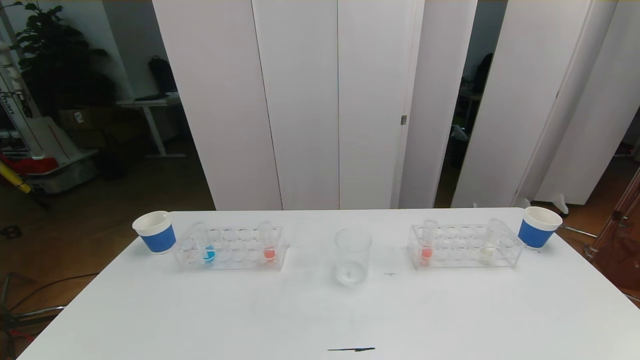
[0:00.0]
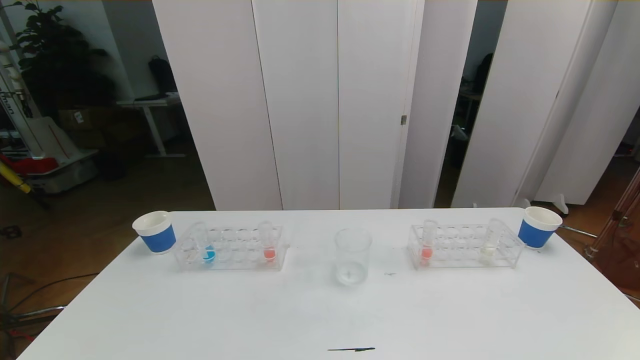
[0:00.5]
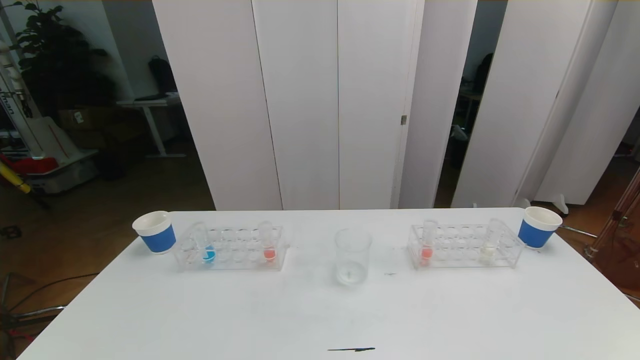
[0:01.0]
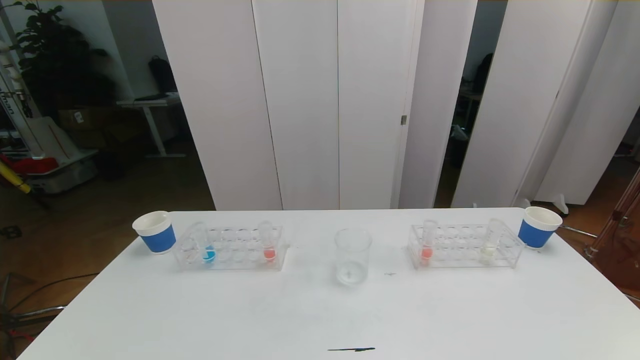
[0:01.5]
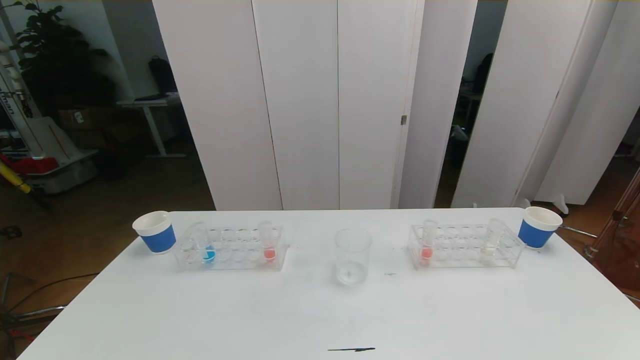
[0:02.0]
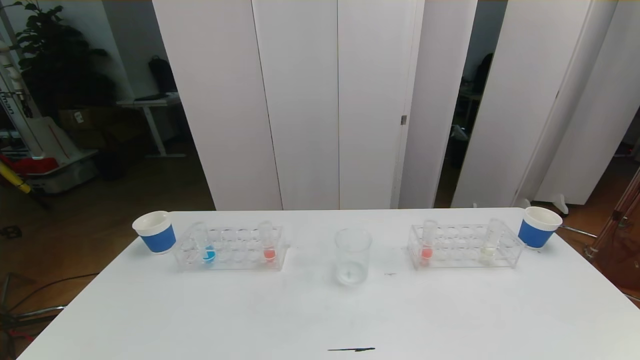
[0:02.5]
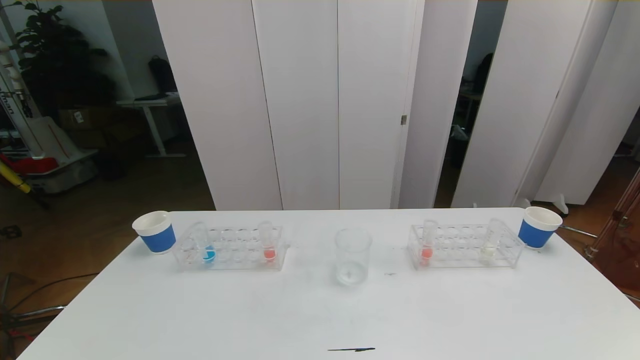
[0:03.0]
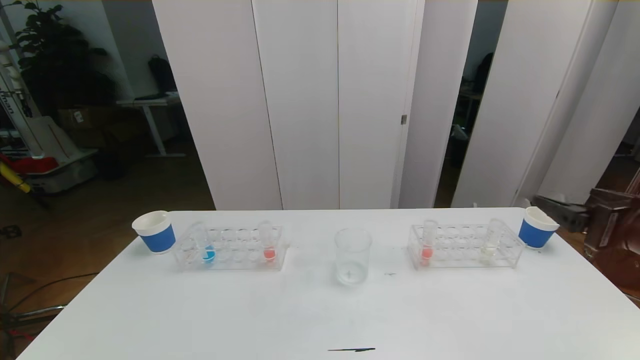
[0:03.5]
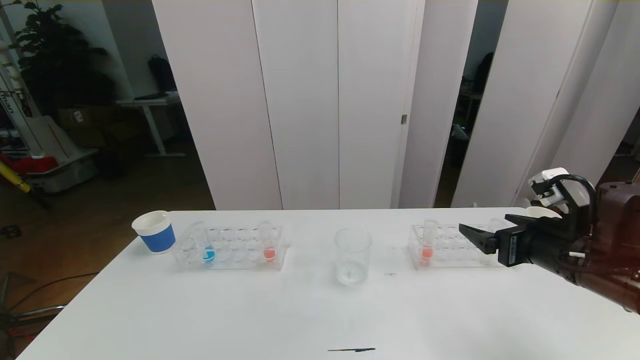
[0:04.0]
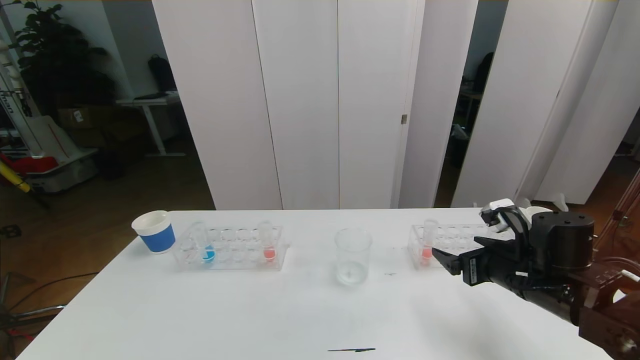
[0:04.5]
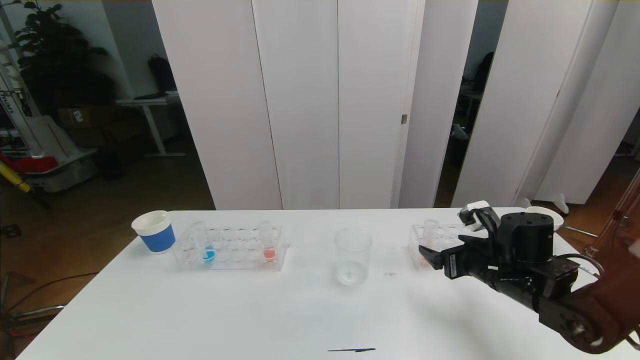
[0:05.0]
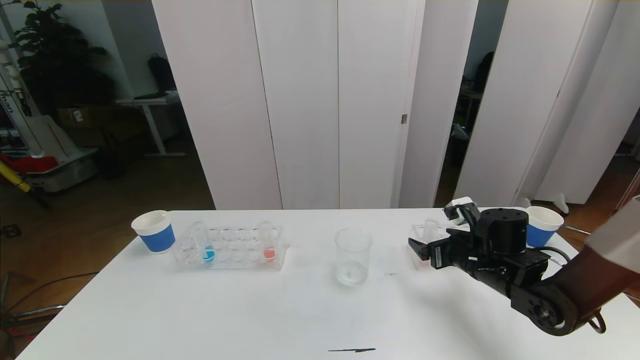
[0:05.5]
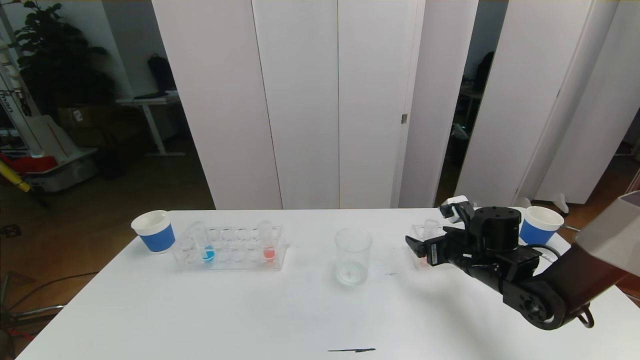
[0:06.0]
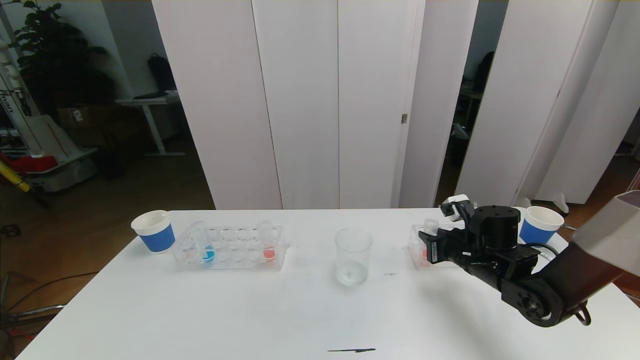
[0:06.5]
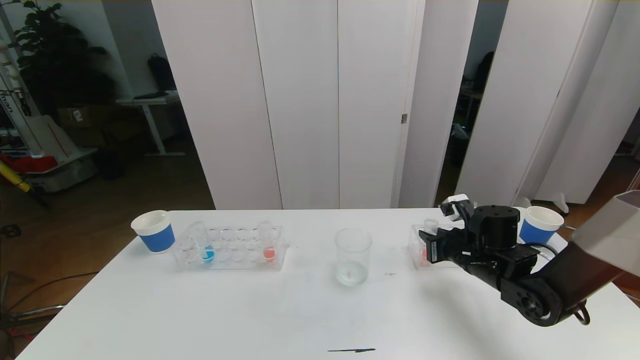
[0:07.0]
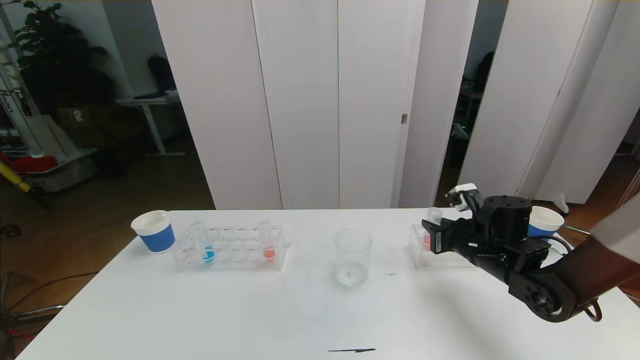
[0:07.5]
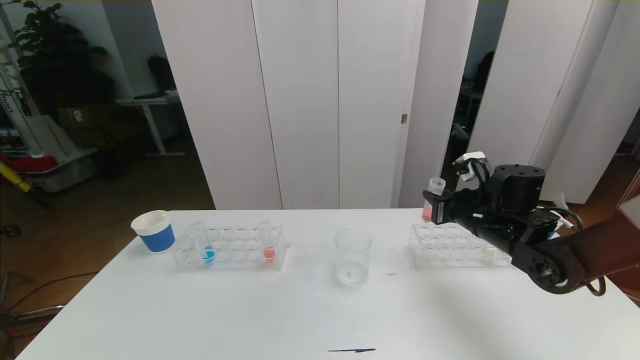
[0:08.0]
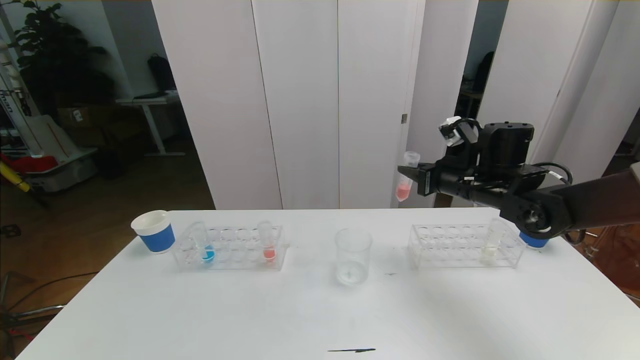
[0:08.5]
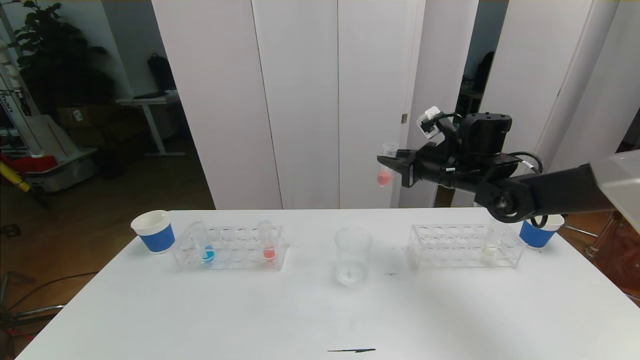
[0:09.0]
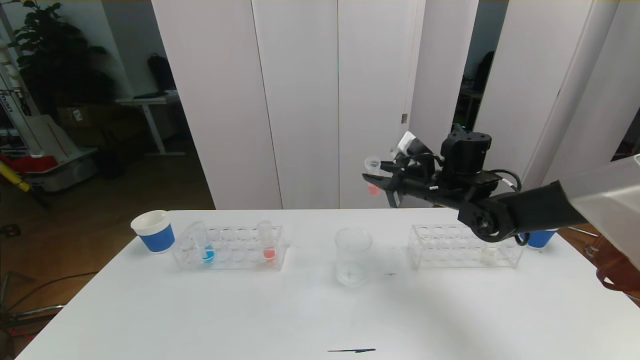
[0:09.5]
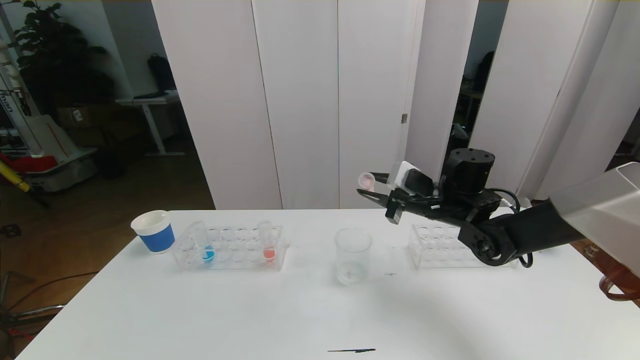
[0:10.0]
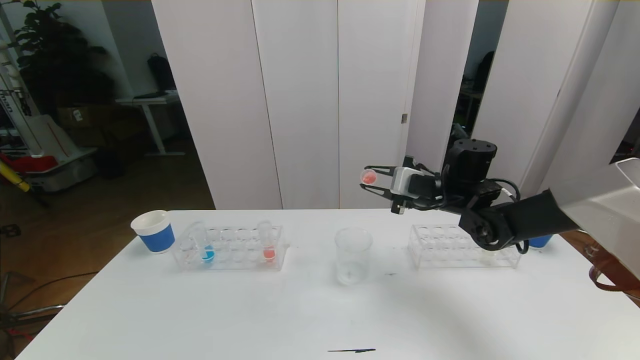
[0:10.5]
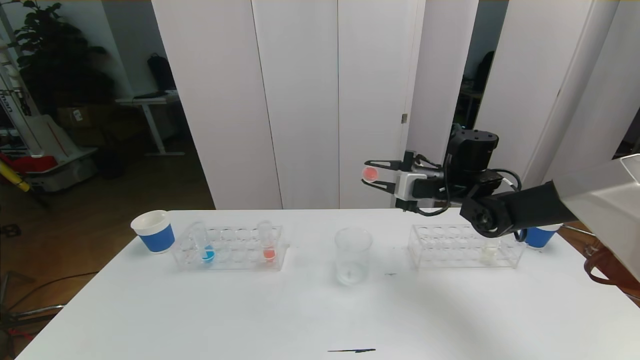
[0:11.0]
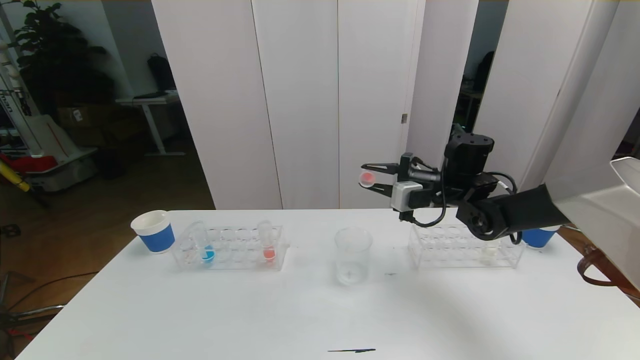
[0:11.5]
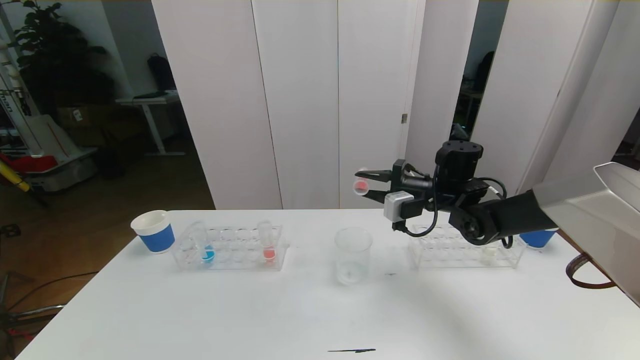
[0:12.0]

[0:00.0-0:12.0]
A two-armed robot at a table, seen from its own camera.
Task of the whole recording: pick up the test tube with red pigment the test tube with blue pigment and the test tube with white pigment by grippers and pour them into the beaker.
0:02.0 to 0:04.0: The right gripper travels forward by roughly 30 cm.
0:04.0 to 0:06.0: The right gripper goes some 15 cm downward and forward.
0:06.0 to 0:08.0: The right gripper is displaced upward by roughly 5 cm, and closes.
0:08.0 to 0:10.0: The right gripper travels to the left by about 5 cm.

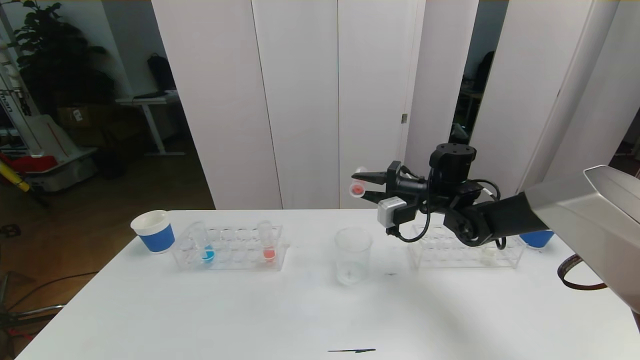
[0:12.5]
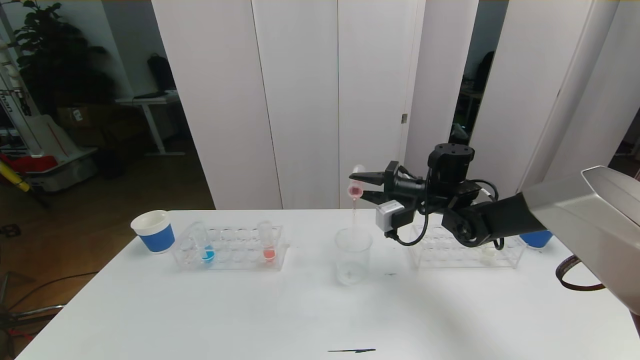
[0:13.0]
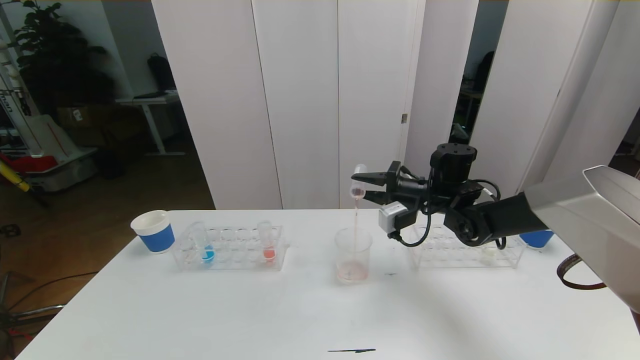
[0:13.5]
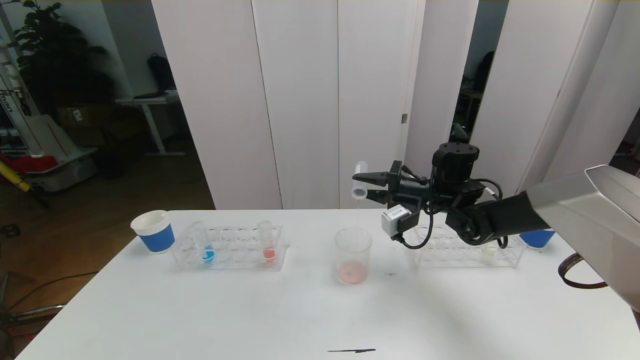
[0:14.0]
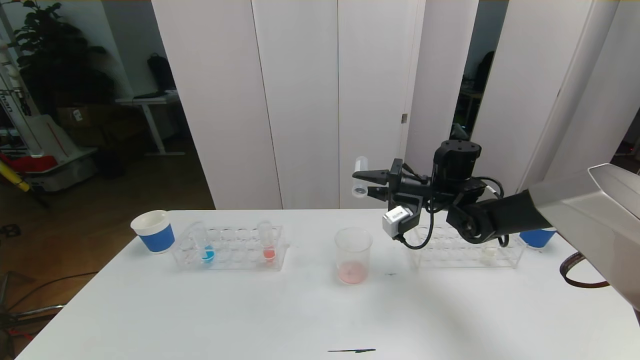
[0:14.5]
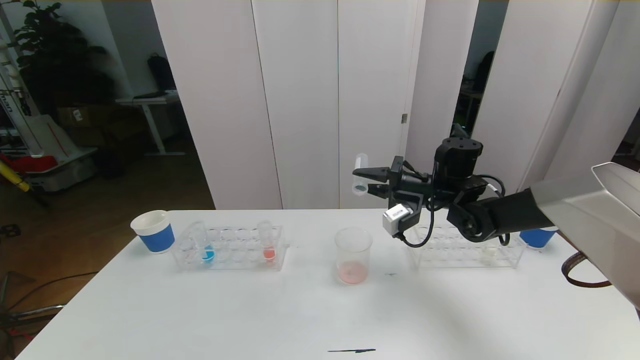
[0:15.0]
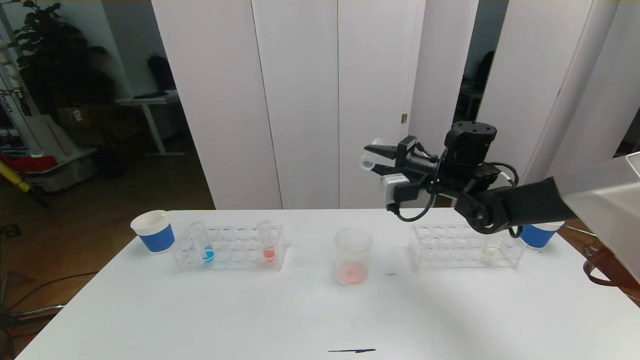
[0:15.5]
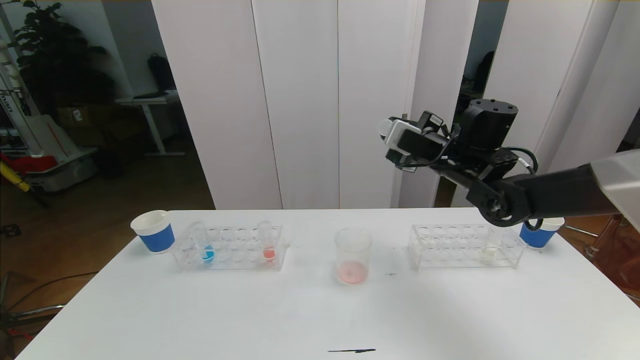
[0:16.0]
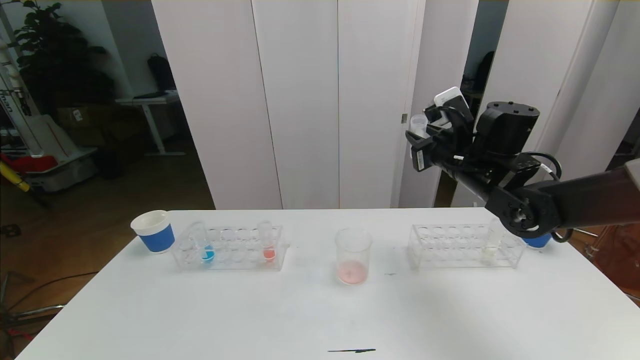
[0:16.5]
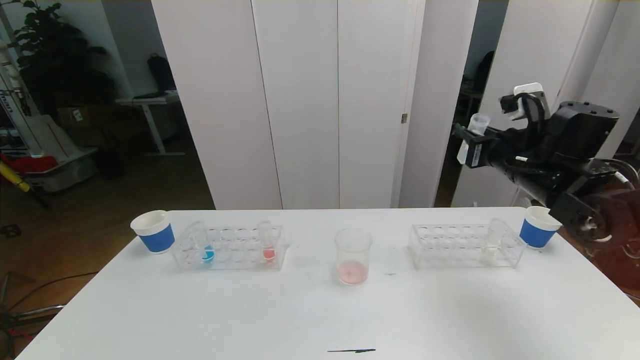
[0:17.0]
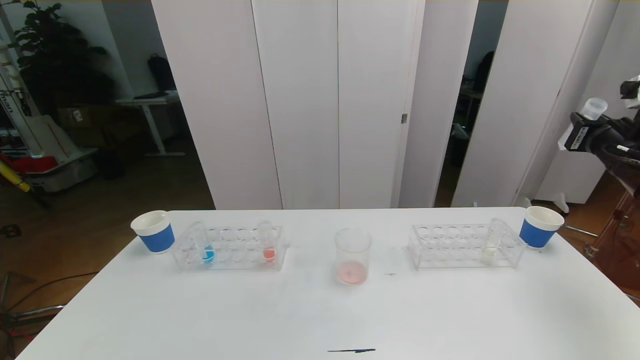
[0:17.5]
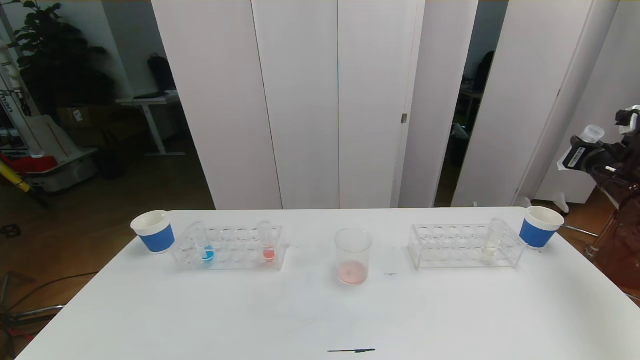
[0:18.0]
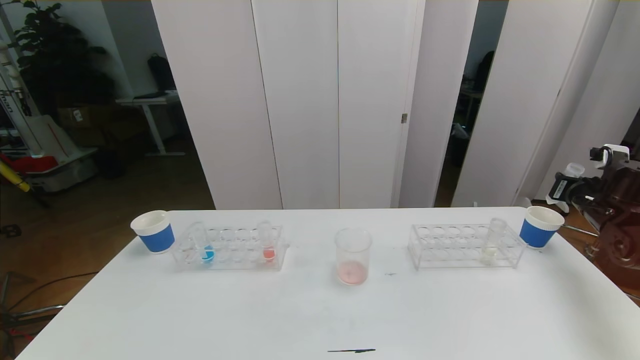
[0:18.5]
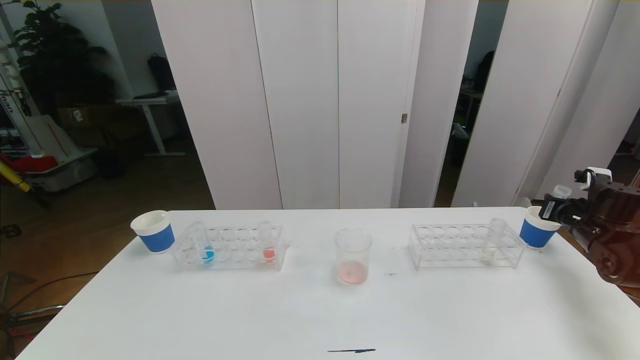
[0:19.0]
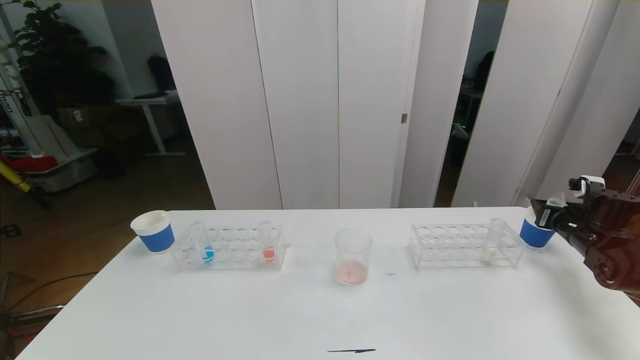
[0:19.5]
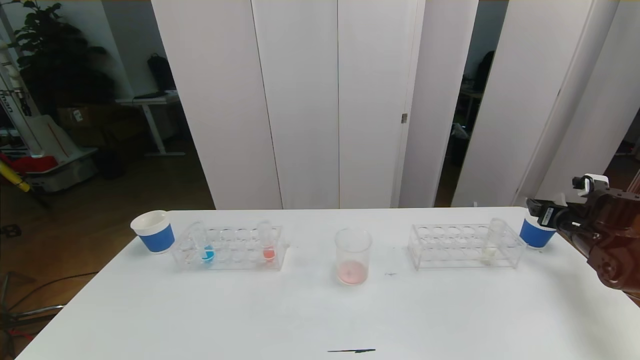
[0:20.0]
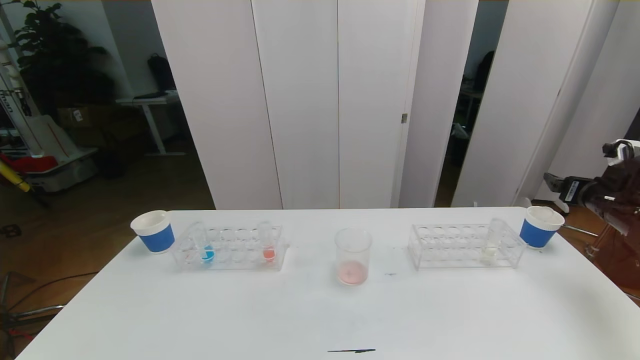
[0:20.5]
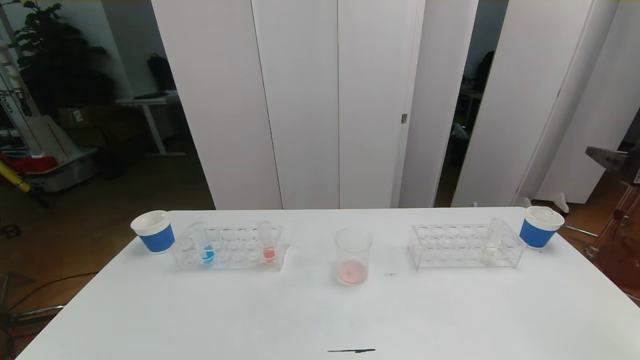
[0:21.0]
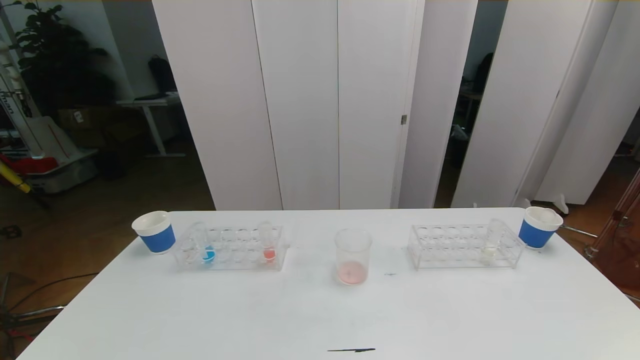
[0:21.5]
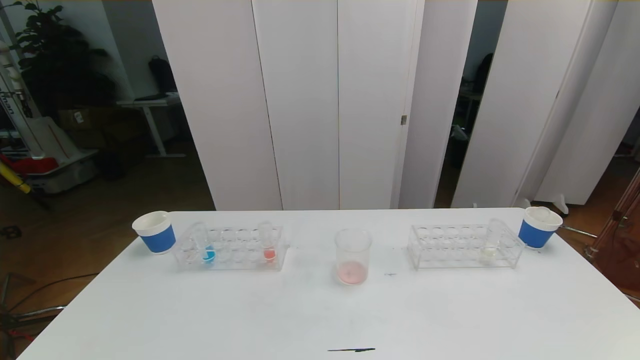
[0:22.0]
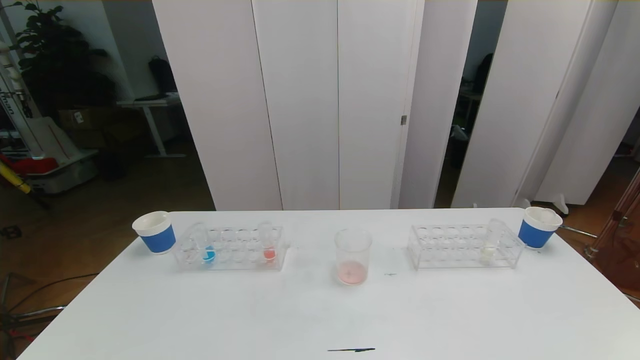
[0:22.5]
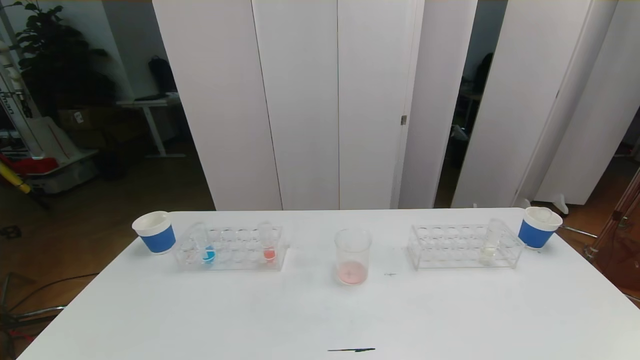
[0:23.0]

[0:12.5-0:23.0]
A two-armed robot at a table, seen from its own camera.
Task of the whole recording: pick up the test tube with red pigment the test tube with blue pigment and the test tube with white pigment by grippers and pour them into the beaker.
0:12.5 to 0:14.5: There are only small adjustments of the grippers.
0:14.5 to 0:16.5: The right gripper is displaced upward by about 5 cm.
0:16.5 to 0:19.0: The right gripper moves to the right and downward, approximately 30 cm.
0:19.0 to 0:21.0: The right gripper heads upward and backward, covering about 20 cm, and opens up.
